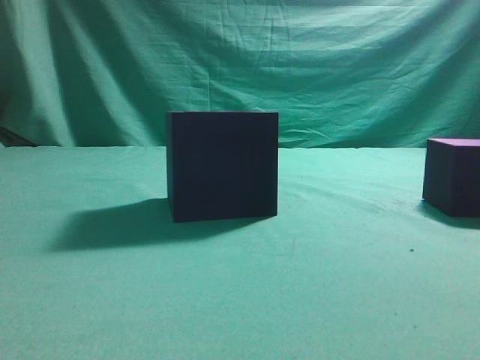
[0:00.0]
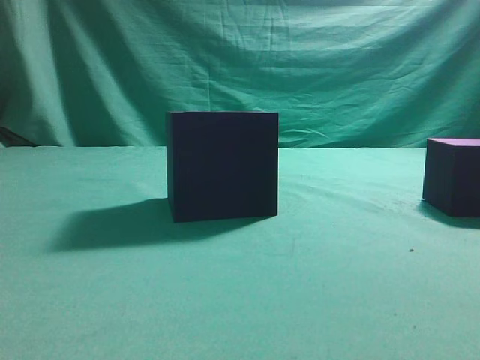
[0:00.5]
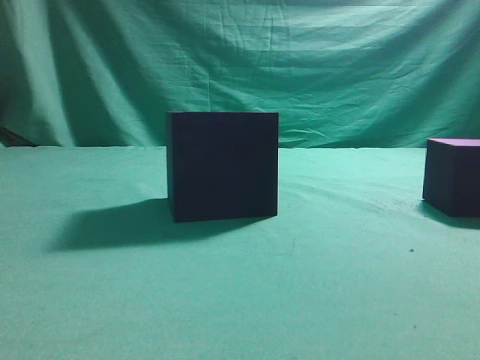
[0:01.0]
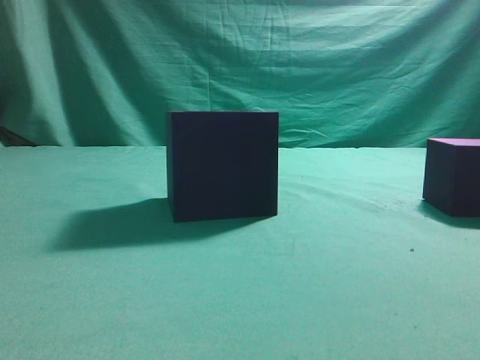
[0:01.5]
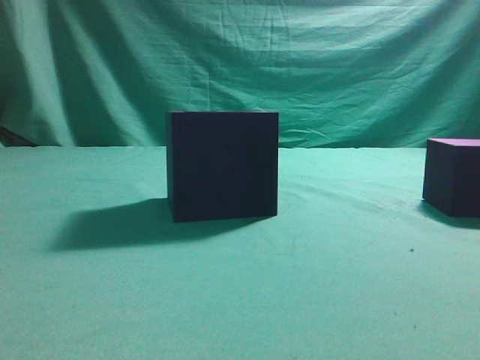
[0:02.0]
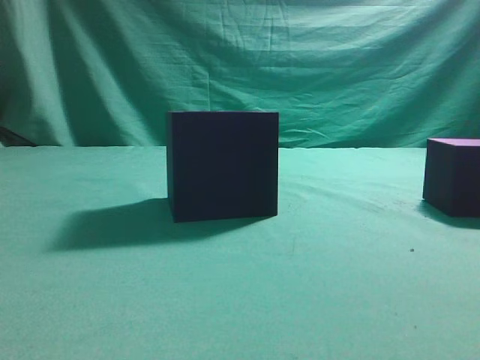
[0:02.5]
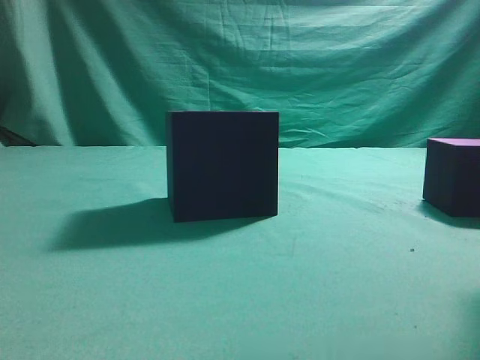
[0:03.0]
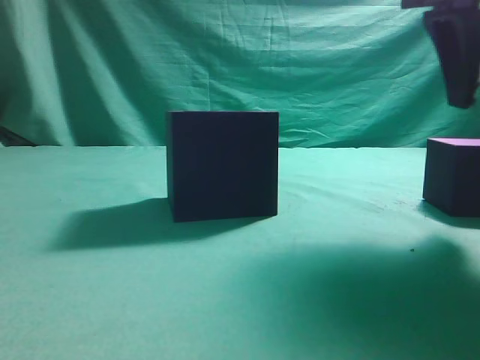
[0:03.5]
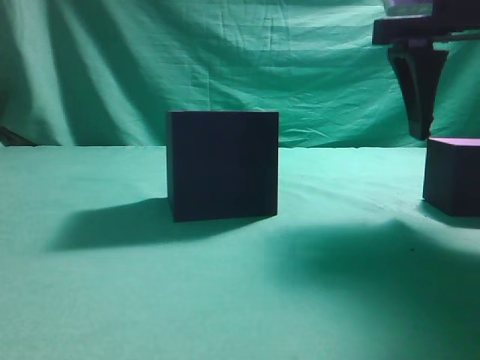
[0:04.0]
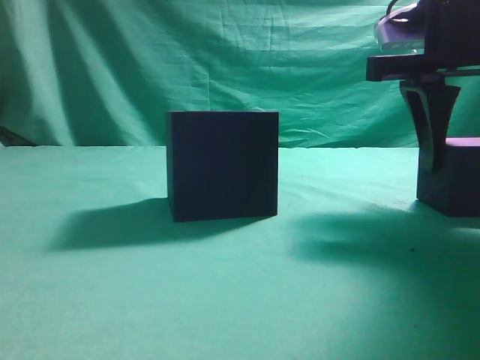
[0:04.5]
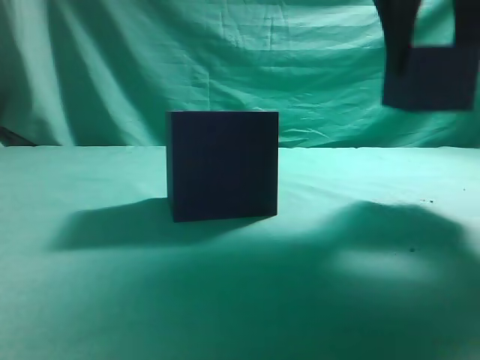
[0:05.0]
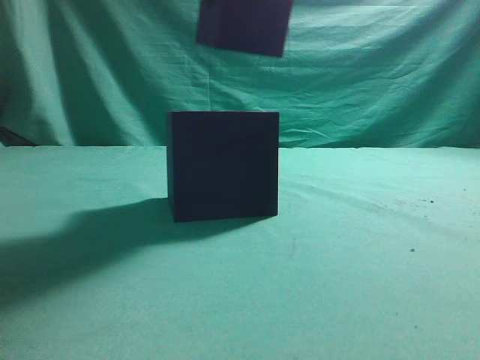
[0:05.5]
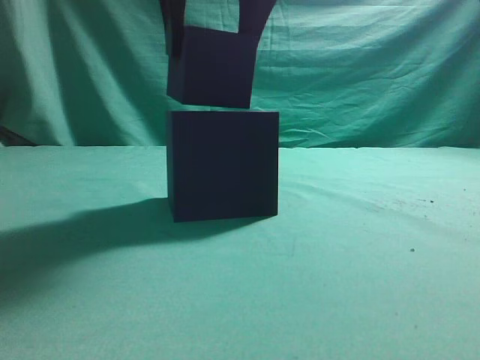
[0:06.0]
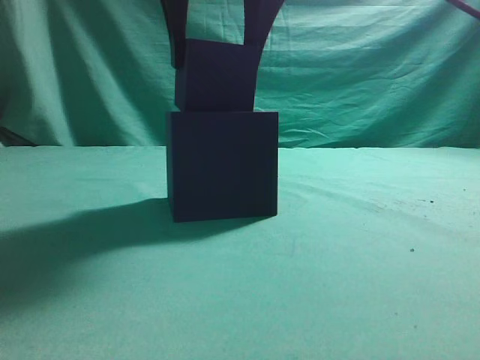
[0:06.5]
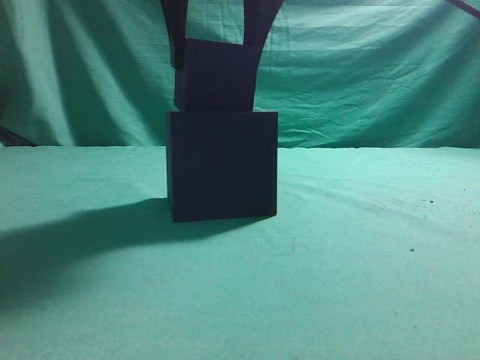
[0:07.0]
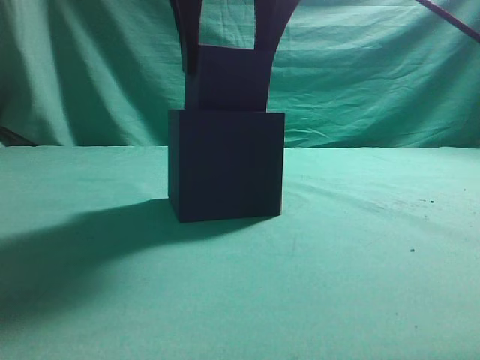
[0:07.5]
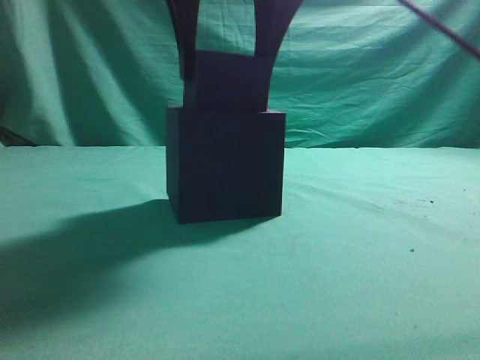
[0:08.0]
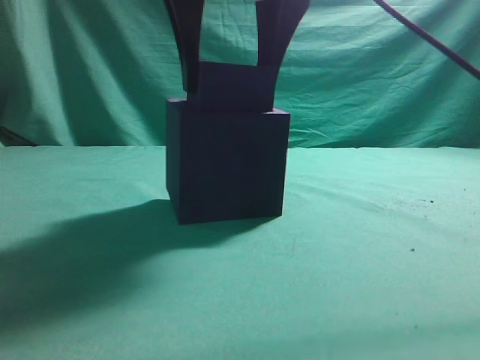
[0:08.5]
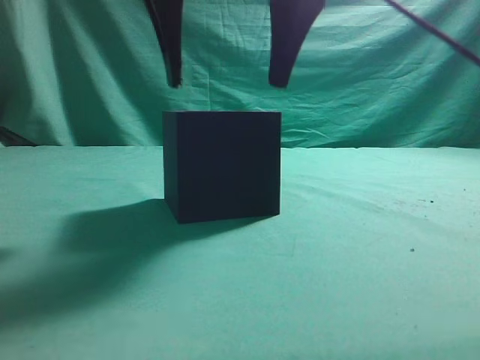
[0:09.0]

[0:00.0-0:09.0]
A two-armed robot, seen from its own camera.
Task of the whole recording: pick up the cube block and place it into the cube groove.
Step, 0:00.0 to 0:04.5: Grasp the cube.
Step, 0:05.0 to 0:09.0: Place cube into the cube-shaped recess.
0:02.0 to 0:04.5: The right gripper shifts roughly 25 cm forward and to the left, and opens up.
0:04.5 to 0:07.0: The right gripper moves to the left and upward, approximately 20 cm.
0:07.0 to 0:09.0: The grippers stay close to where they were, moving slightly.
